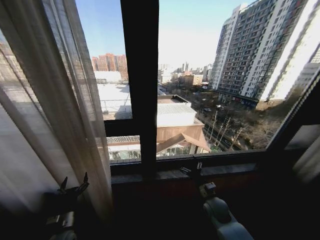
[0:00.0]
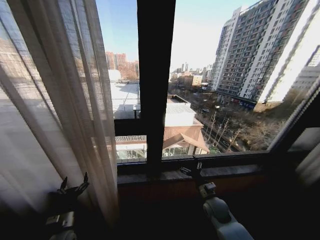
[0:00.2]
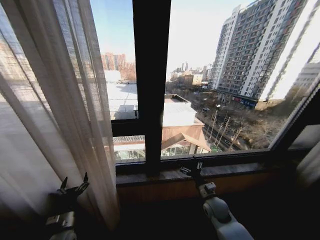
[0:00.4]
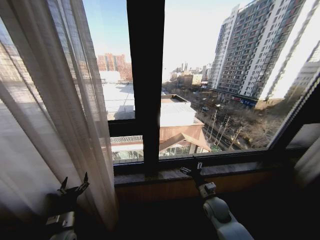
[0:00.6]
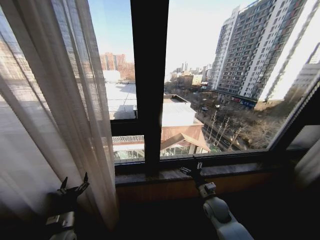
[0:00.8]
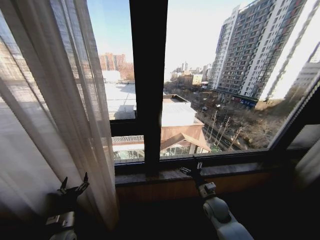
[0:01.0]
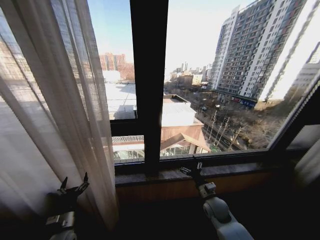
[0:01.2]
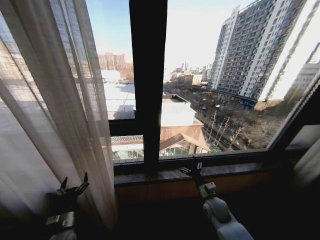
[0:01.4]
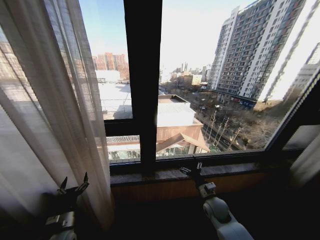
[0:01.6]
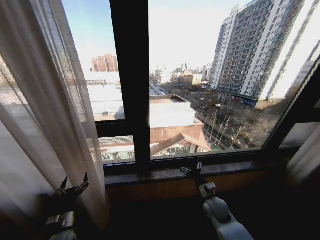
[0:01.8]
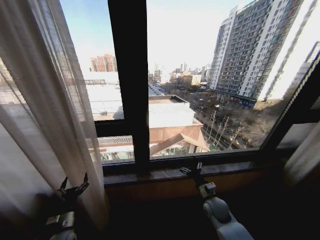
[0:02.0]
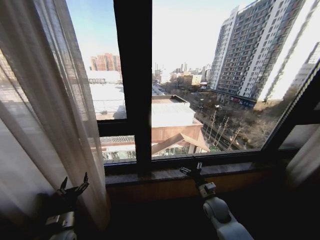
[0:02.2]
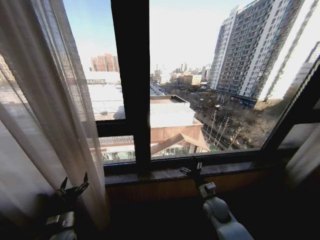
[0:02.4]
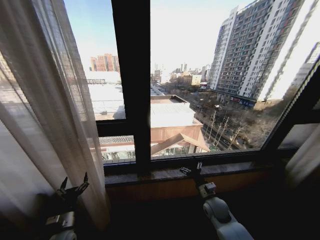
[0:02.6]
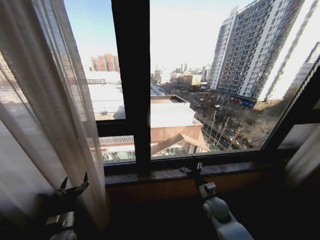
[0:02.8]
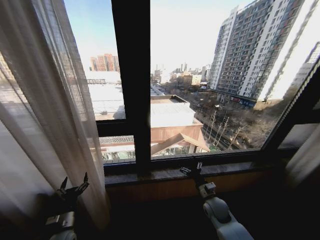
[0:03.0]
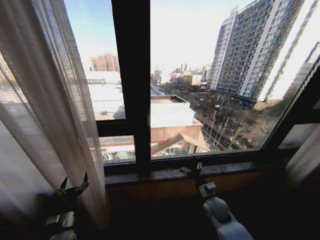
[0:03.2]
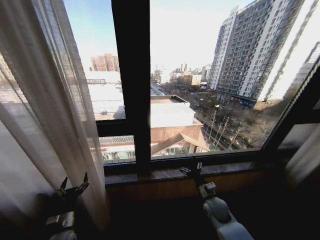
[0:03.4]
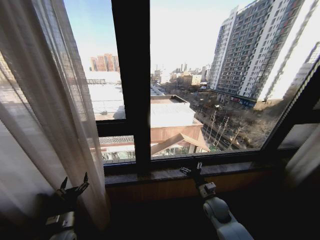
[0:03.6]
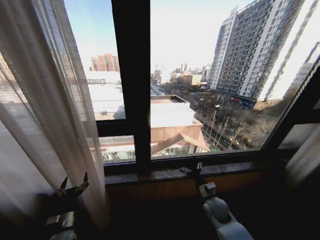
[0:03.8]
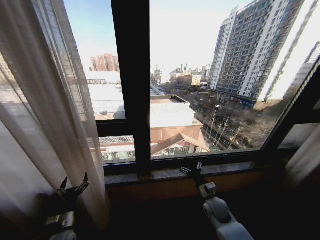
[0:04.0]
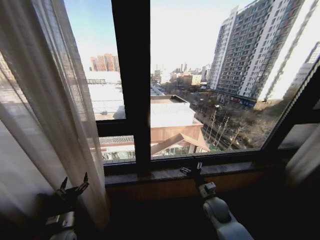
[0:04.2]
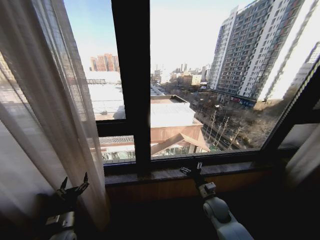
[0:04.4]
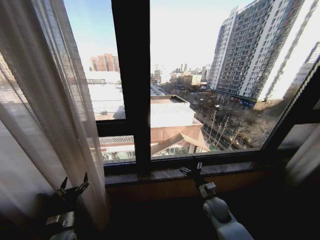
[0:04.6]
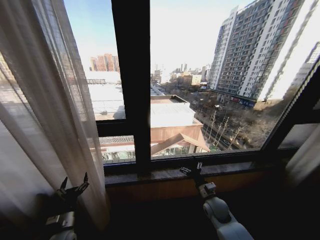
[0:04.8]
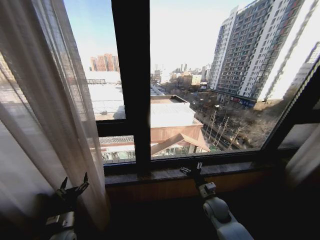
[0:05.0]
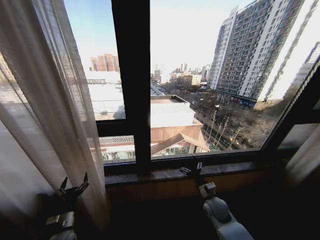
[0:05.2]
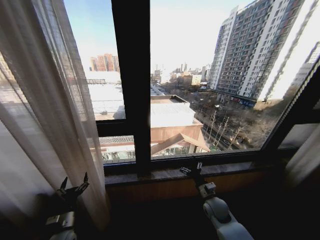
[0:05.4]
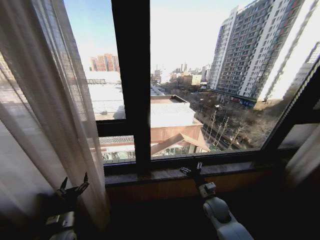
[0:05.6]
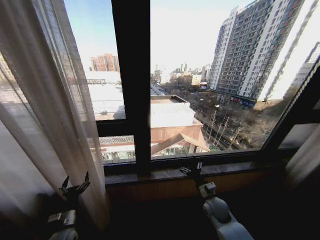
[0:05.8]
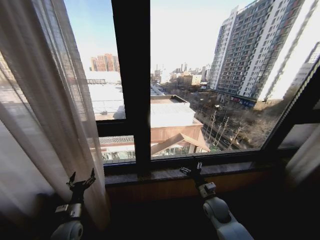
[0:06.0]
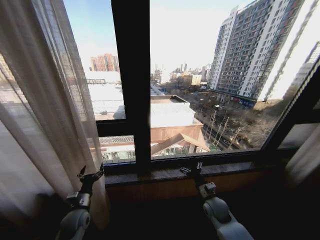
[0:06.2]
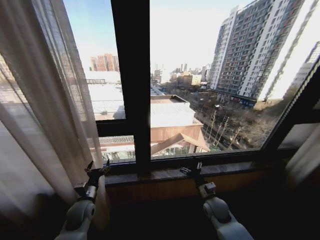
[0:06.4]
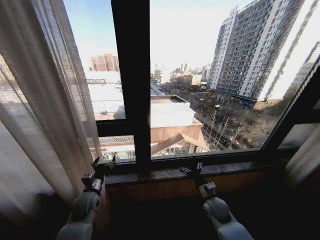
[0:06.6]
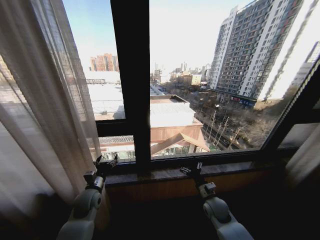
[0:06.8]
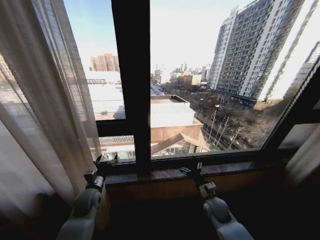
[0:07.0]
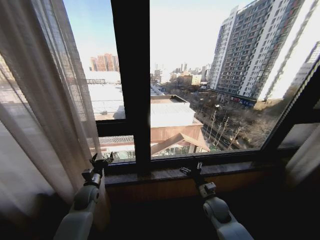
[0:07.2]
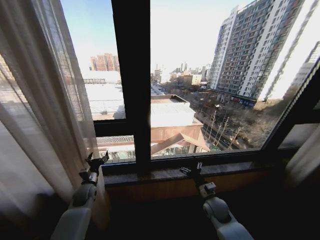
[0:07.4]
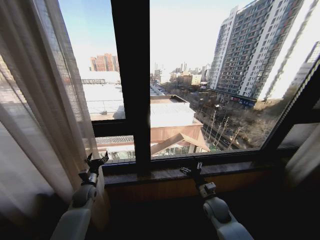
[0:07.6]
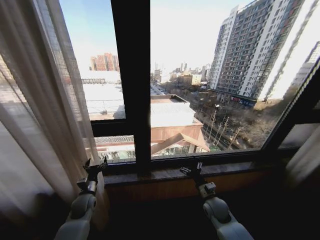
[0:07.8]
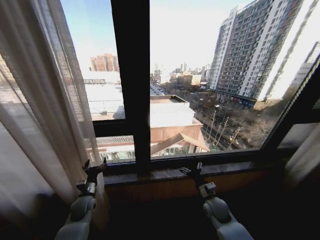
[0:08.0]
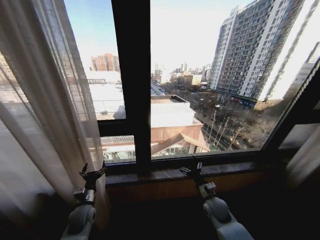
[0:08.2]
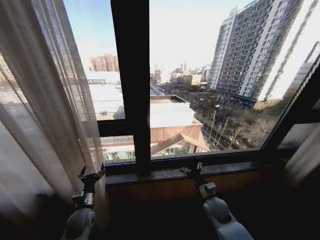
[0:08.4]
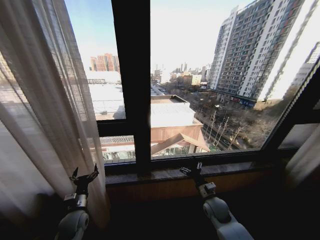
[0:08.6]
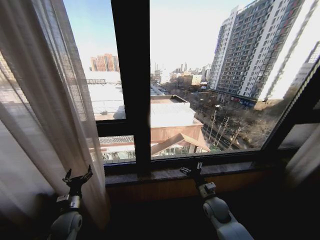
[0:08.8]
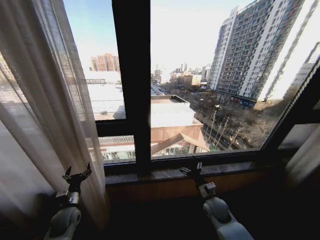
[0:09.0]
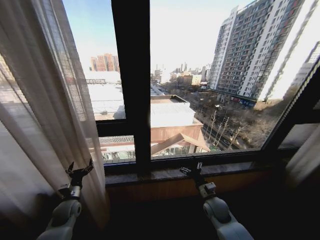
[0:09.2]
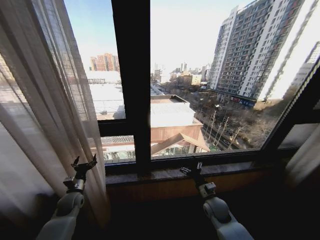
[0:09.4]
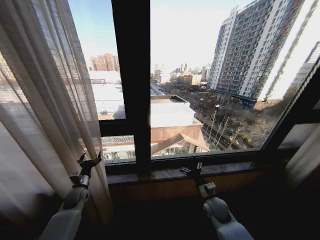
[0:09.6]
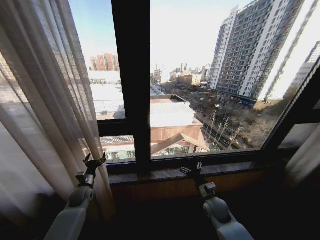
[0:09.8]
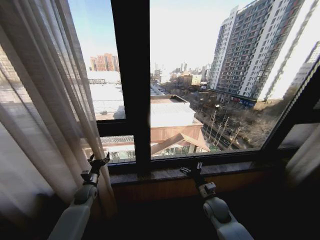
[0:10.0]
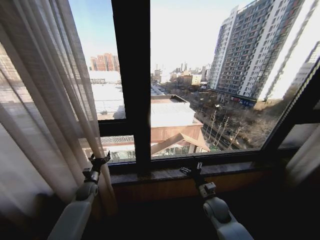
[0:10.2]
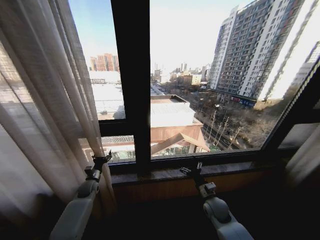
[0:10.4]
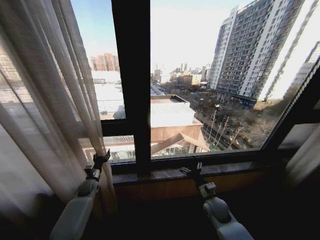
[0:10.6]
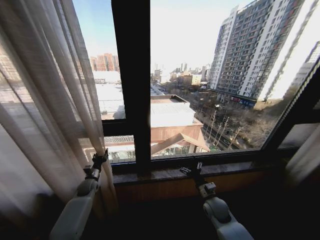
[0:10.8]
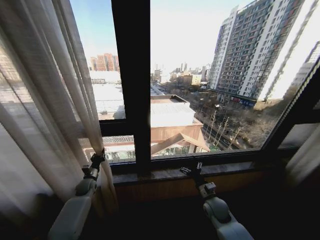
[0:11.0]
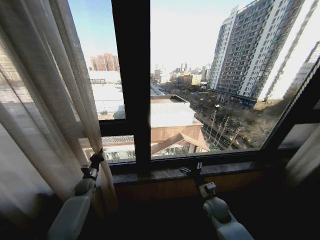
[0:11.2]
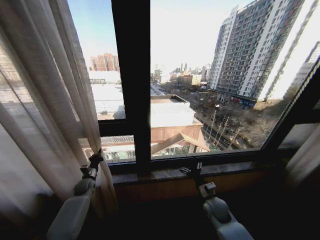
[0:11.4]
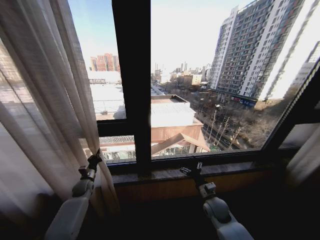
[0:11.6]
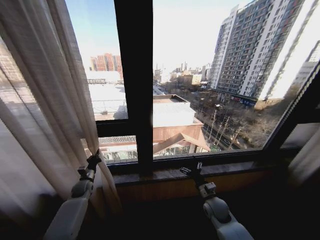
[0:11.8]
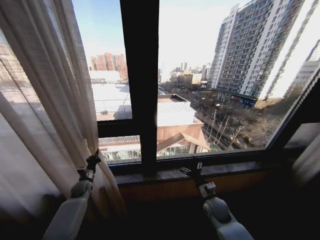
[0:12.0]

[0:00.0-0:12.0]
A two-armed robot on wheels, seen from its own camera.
Task of the whole recording: Open the curtains by pulling them apart, changing their state from closed to fully open.
0:03.0 to 0:04.4: Both grippers stay put.
0:04.4 to 0:06.0: There are only small adjustments of the grippers.
0:06.0 to 0:07.6: The left gripper is displaced forward by roughly 15 cm.
0:07.6 to 0:09.0: The left gripper heads backward, covering some 10 cm.
0:09.0 to 0:10.4: The left gripper is displaced forward by some 15 cm.
0:10.4 to 0:12.0: The left gripper closes.

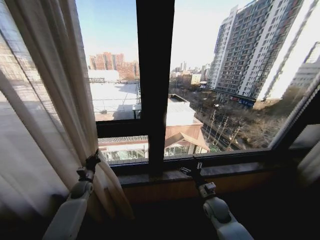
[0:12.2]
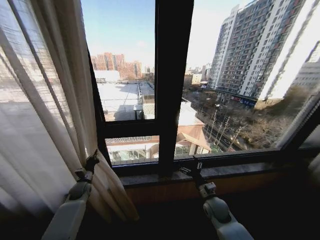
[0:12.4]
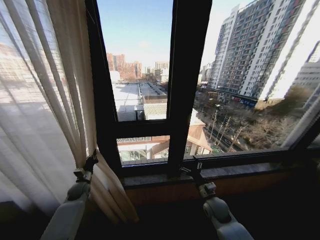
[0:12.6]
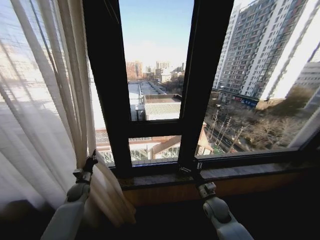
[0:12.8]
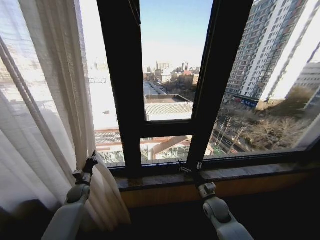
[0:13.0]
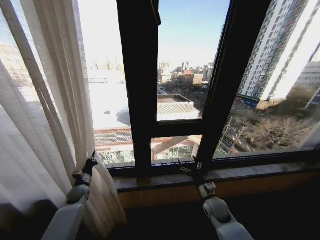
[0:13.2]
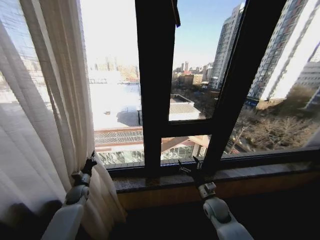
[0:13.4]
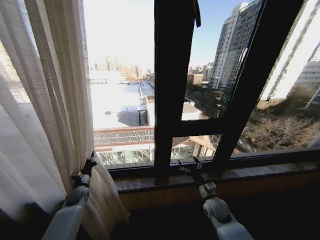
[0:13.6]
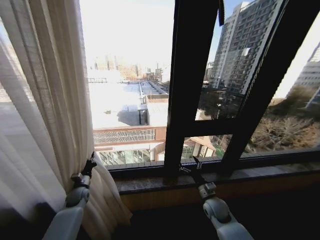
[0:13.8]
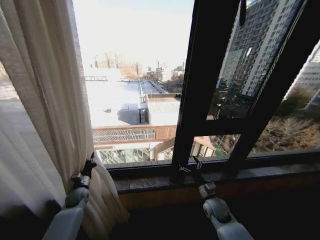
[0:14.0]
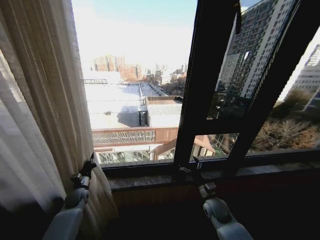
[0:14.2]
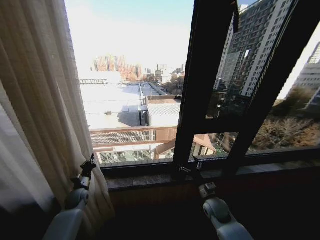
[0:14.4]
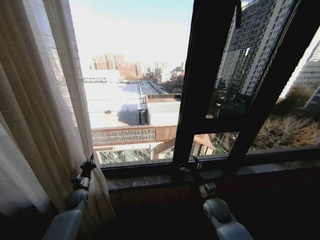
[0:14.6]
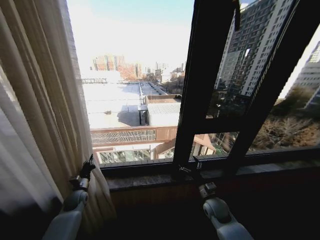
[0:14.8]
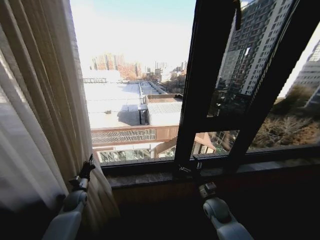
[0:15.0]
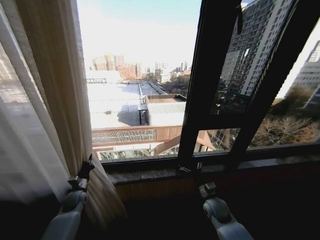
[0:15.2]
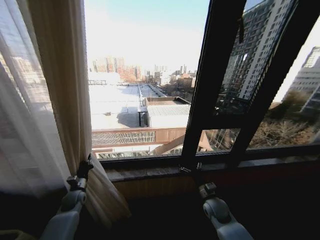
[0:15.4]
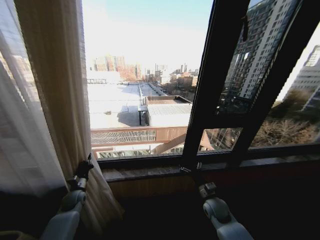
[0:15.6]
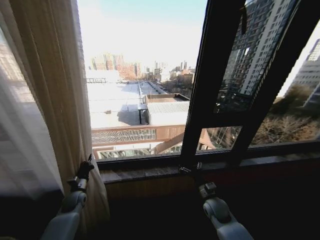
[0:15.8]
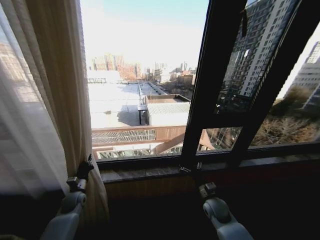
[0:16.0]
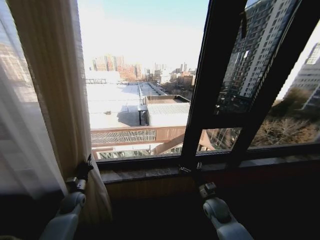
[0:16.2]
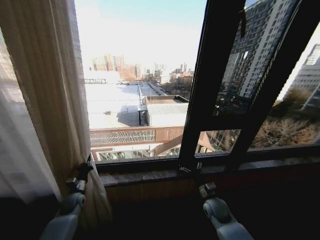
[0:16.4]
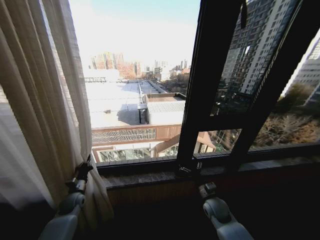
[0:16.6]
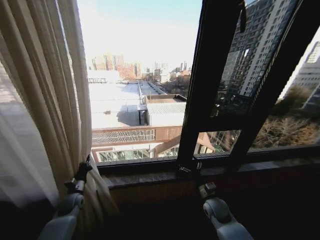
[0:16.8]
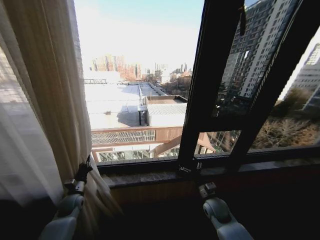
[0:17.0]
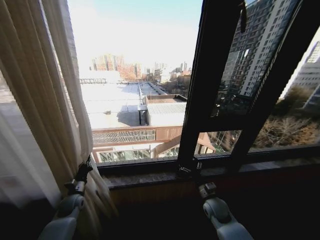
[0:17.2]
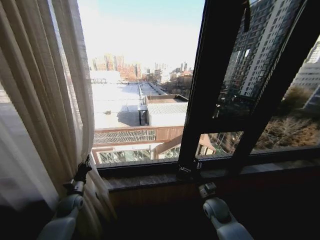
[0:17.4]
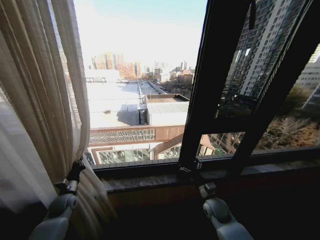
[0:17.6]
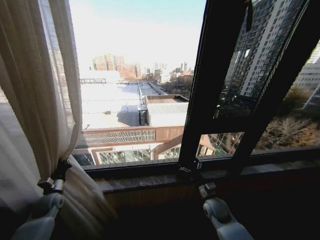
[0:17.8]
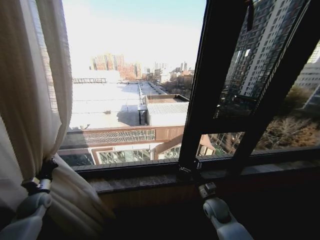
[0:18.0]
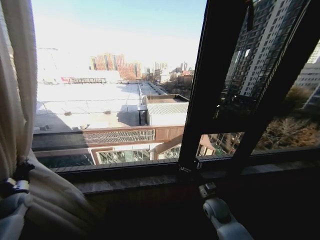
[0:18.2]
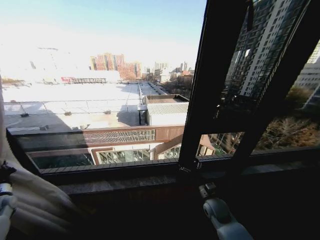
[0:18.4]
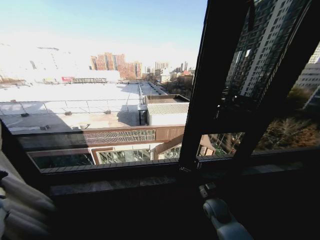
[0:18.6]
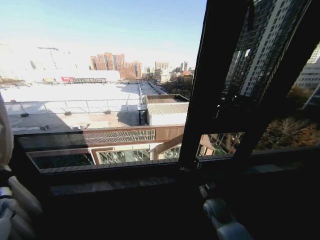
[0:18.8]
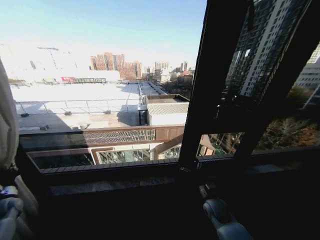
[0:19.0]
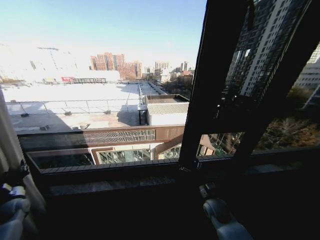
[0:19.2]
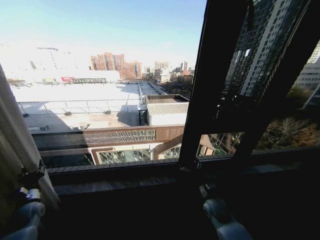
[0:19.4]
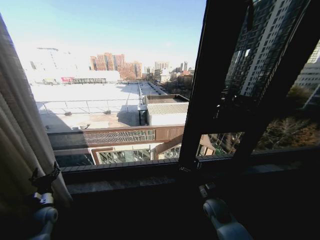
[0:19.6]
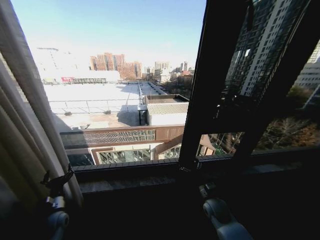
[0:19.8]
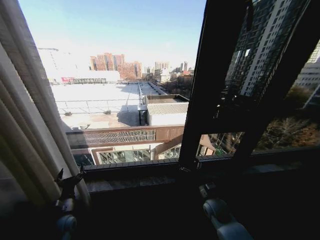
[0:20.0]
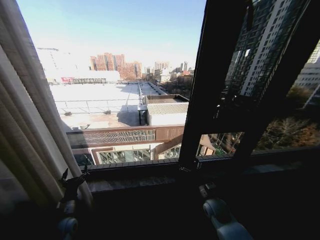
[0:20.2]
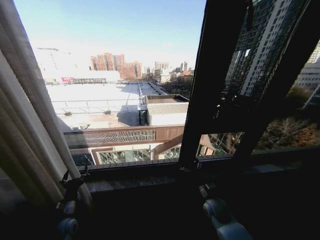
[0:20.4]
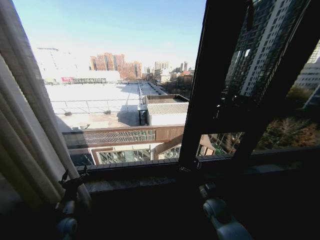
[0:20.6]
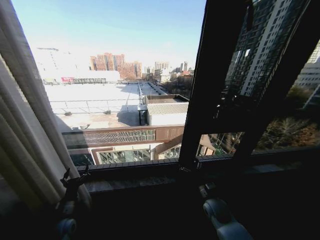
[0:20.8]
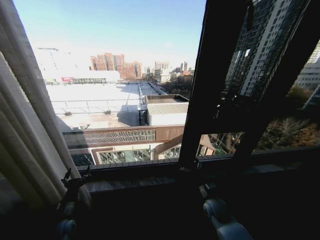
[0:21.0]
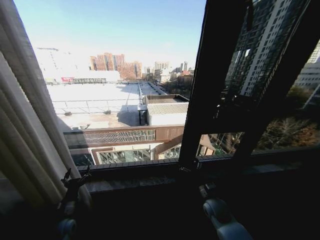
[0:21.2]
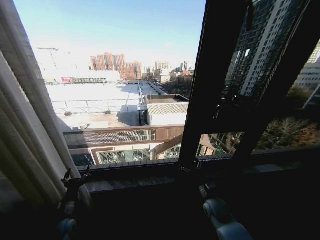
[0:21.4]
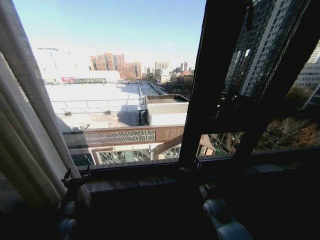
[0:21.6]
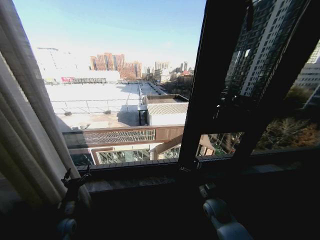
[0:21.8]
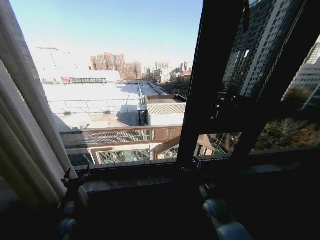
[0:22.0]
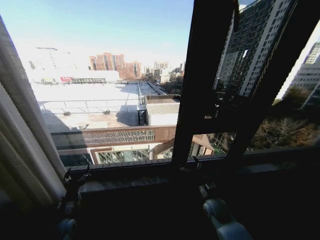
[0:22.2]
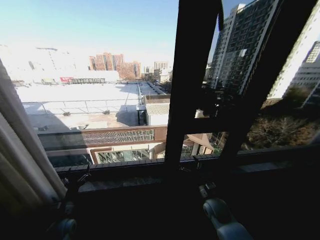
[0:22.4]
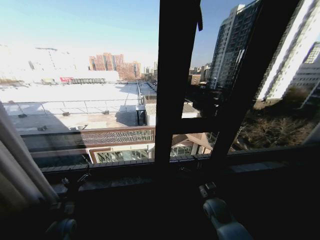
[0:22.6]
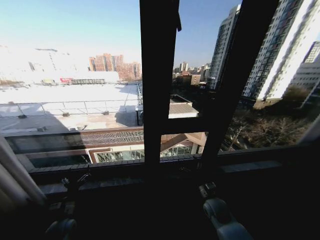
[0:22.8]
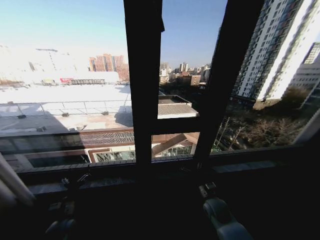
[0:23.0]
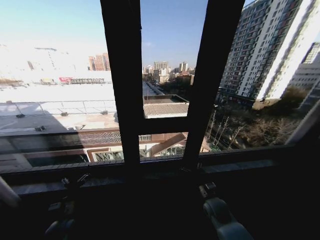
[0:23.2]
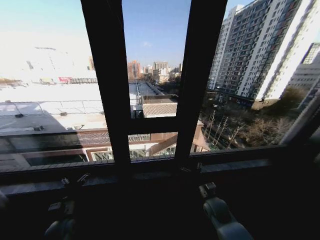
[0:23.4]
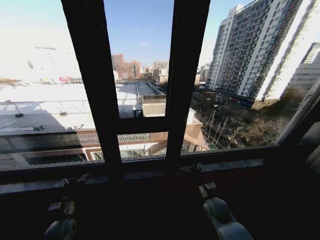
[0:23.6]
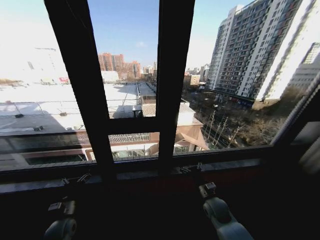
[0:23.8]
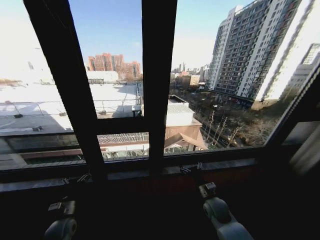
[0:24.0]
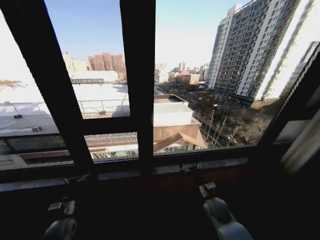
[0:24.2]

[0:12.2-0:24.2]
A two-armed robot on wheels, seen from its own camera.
Task of the whole recording: Open the curtains by pulling them apart, changing their state from closed to fully open.
0:16.6 to 0:18.2: The left gripper heads to the left, covering about 20 cm.
0:18.2 to 0:19.8: The left gripper is displaced to the right by roughly 15 cm, and opens.
0:19.8 to 0:21.2: The left gripper shifts by about 5 cm.
